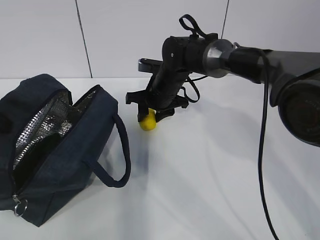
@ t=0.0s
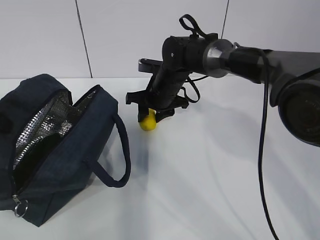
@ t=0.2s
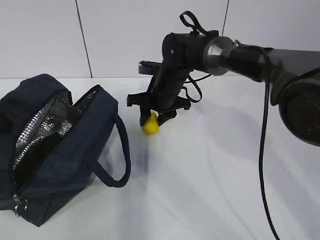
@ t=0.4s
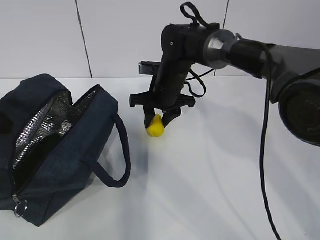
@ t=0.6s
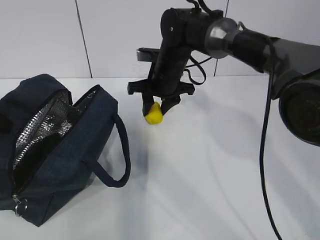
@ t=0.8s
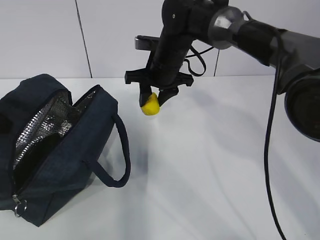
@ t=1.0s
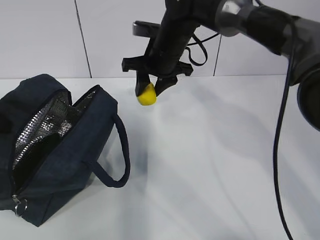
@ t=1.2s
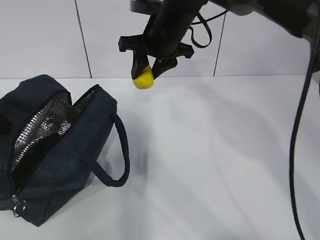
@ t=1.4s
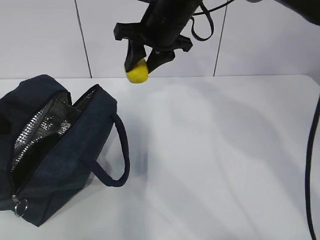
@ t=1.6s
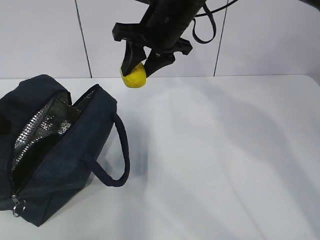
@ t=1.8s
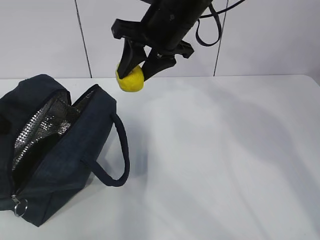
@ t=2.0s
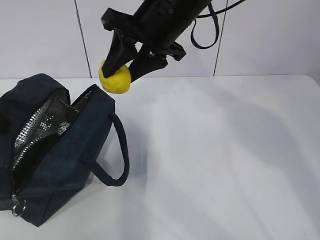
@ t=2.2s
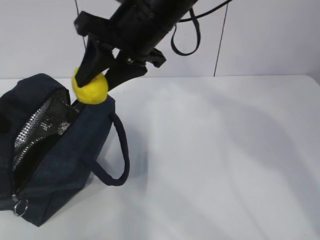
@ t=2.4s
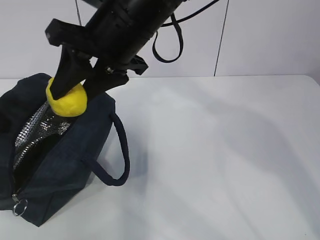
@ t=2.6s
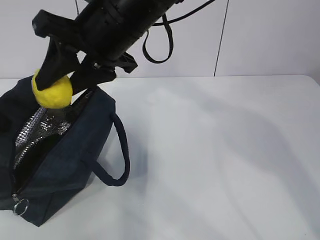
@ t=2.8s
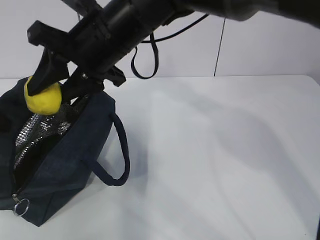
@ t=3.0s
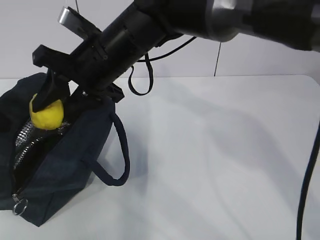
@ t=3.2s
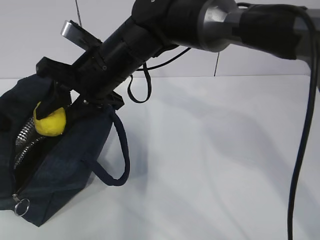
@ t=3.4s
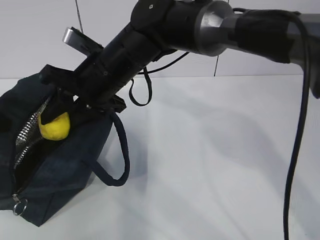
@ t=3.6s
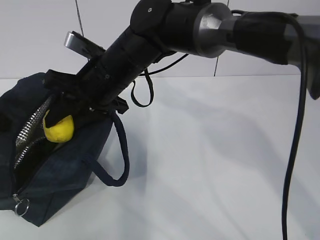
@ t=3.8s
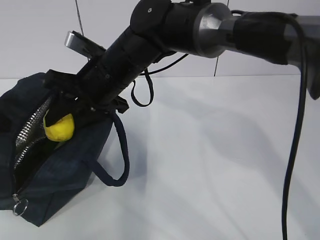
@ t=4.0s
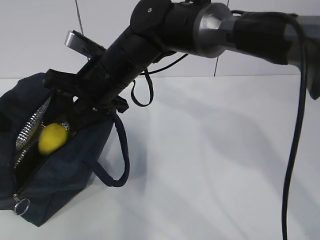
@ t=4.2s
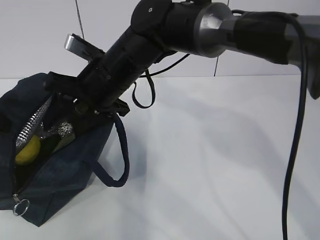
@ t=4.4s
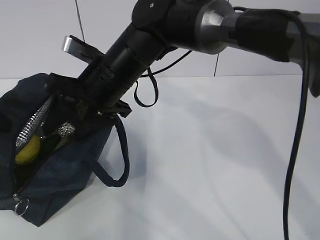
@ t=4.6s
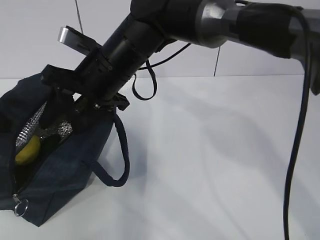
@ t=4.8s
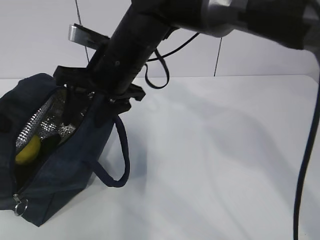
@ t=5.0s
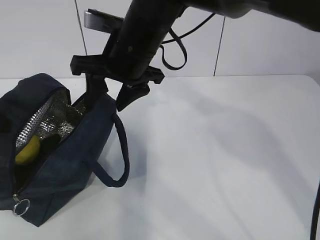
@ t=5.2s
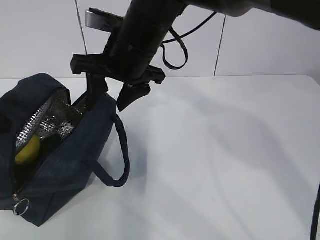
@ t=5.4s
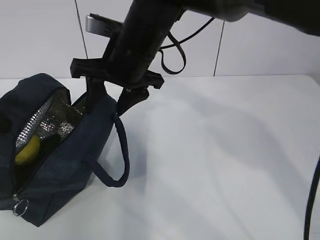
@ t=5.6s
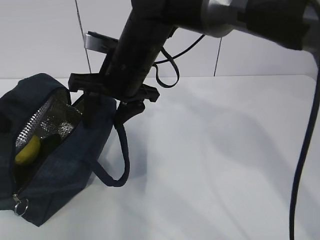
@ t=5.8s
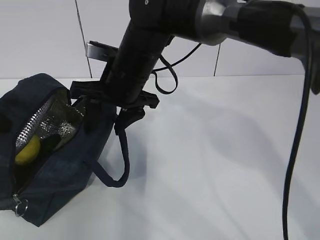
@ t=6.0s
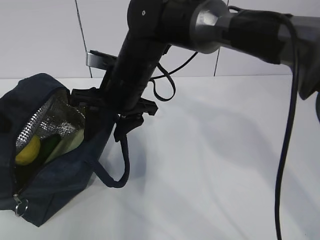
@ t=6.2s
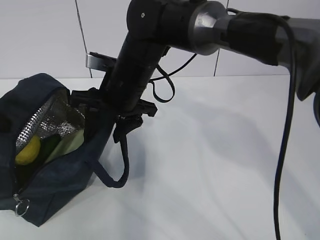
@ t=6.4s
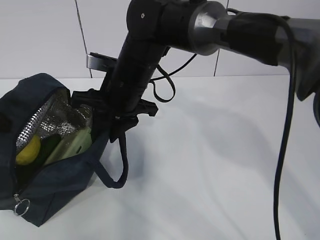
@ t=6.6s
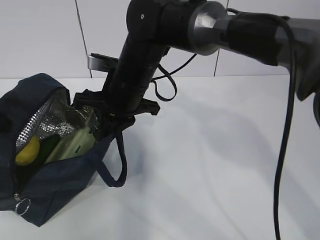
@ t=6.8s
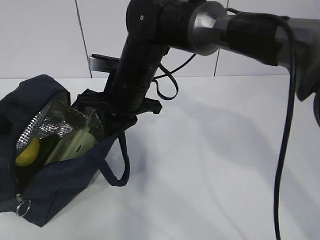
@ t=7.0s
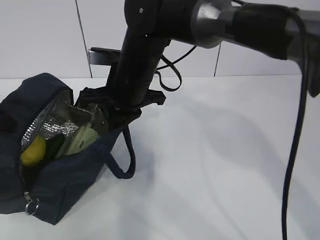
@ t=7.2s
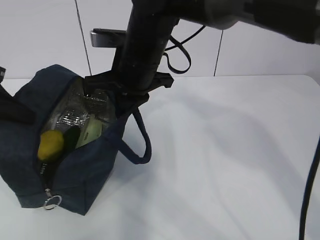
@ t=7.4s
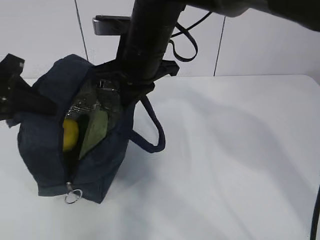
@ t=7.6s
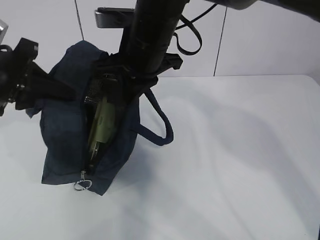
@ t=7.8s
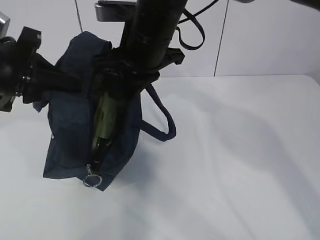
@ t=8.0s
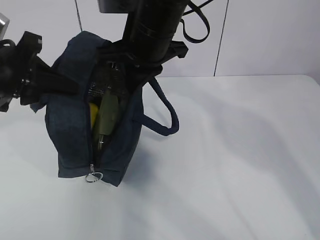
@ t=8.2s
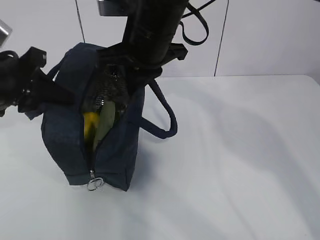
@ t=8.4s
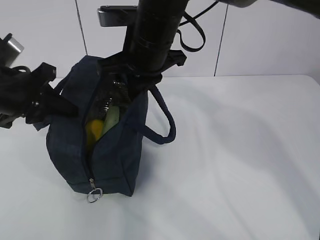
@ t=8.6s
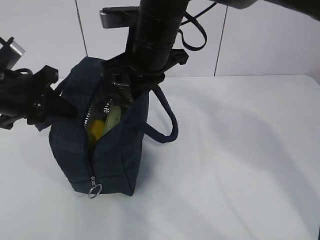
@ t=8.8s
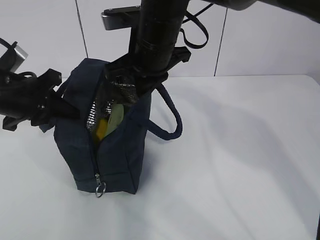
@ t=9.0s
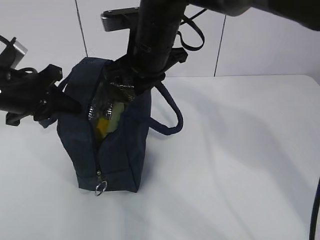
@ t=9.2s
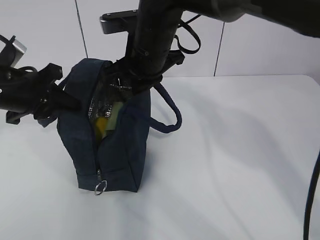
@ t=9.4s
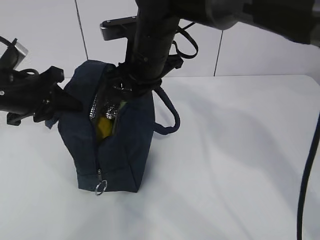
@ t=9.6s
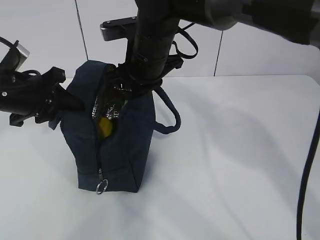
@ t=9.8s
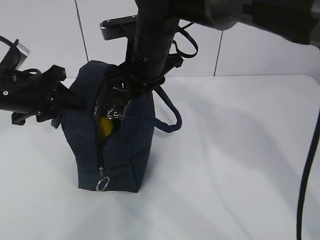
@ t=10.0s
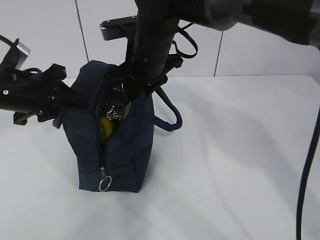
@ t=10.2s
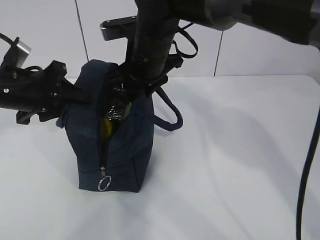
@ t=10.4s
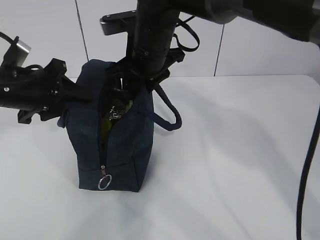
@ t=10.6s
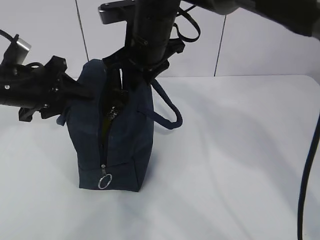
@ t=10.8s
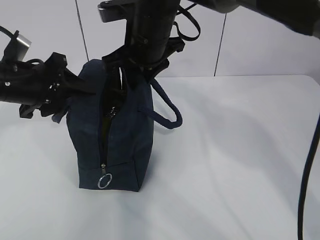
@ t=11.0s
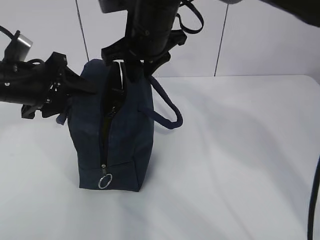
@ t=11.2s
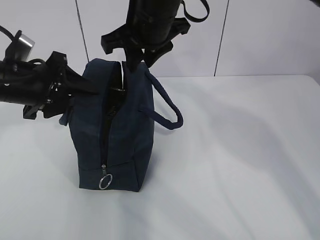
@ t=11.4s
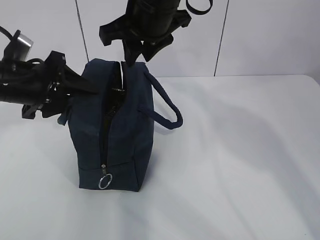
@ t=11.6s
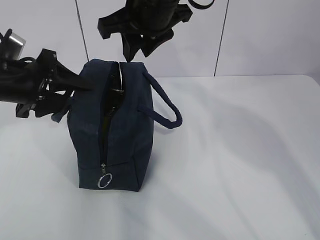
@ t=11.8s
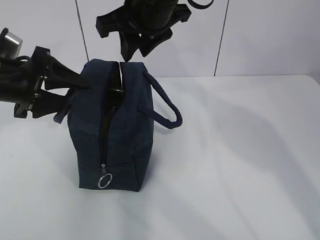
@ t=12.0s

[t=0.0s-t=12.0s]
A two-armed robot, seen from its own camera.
Step, t=0.0s to t=3.0s: Move the lunch bag to the right.
t=0.0s to t=1.6s: The right gripper shifts some 15 cm upward.
t=1.6s to t=3.0s: The right gripper moves backward and to the left, approximately 10 cm.
t=3.0s to t=4.4s: The right gripper moves downward, approximately 5 cm.
t=6.0s to t=7.6s: The right gripper closes its fingers; the left gripper goes roughly 5 cm to the right.
t=7.6s to t=9.0s: The left gripper ends up about 5 cm from where it was.
t=9.0s to t=10.4s: The right gripper opens up. The left gripper opens up.
t=10.4s to t=12.0s: The left gripper opens its fingers. The right gripper is displaced upward by approximately 10 cm.

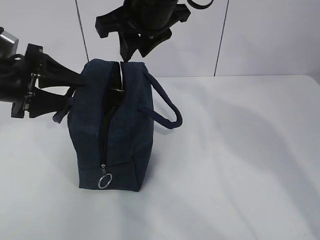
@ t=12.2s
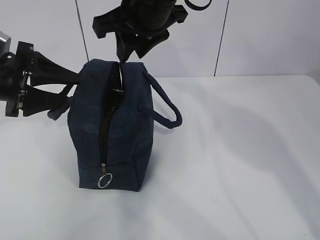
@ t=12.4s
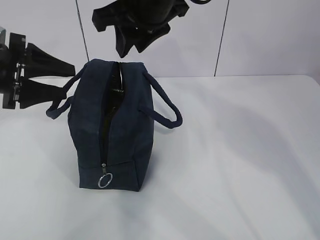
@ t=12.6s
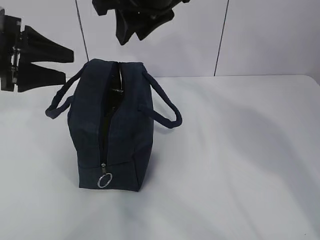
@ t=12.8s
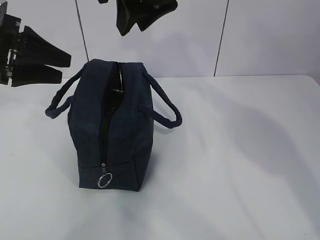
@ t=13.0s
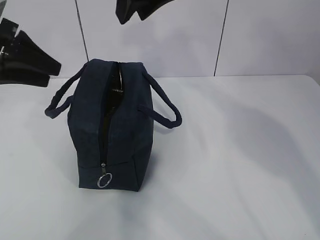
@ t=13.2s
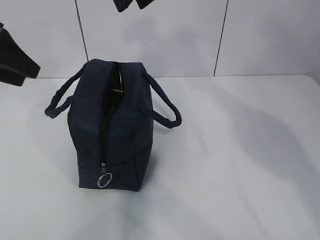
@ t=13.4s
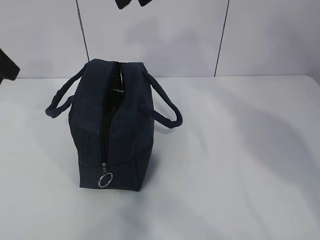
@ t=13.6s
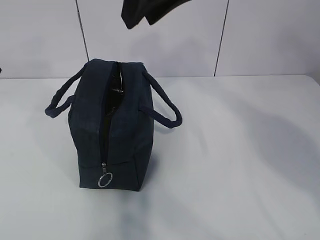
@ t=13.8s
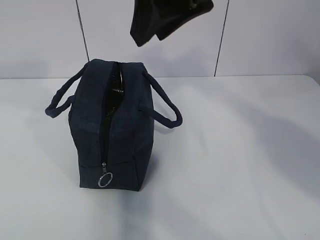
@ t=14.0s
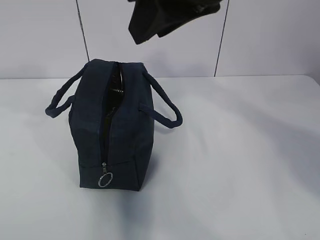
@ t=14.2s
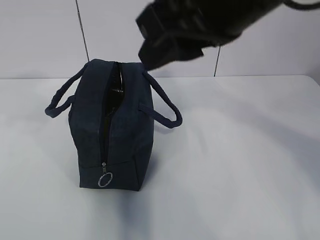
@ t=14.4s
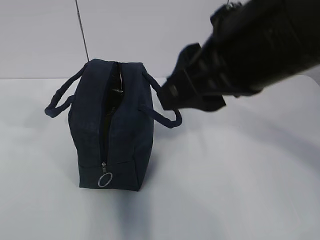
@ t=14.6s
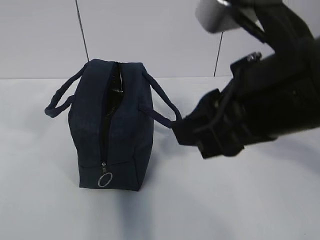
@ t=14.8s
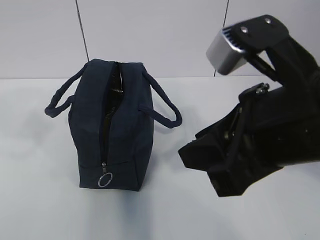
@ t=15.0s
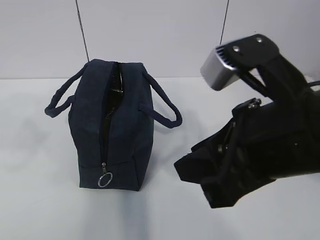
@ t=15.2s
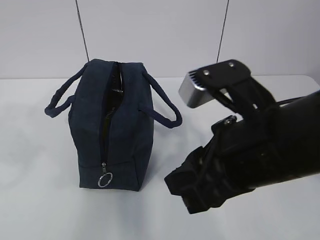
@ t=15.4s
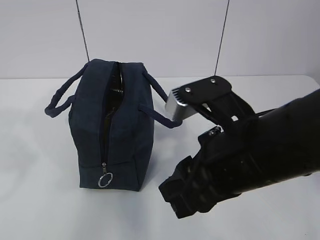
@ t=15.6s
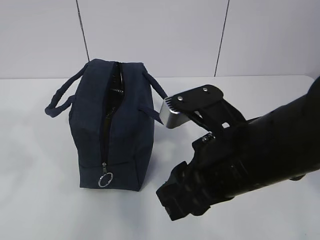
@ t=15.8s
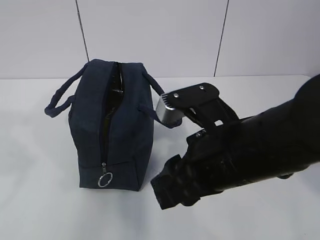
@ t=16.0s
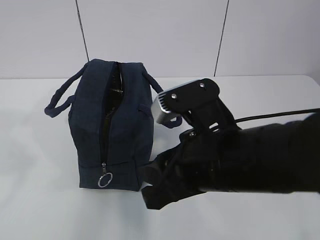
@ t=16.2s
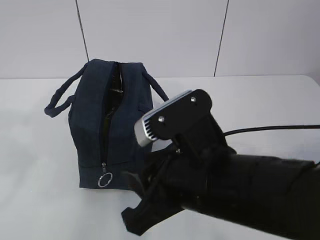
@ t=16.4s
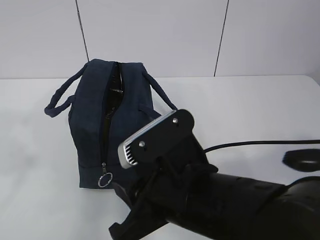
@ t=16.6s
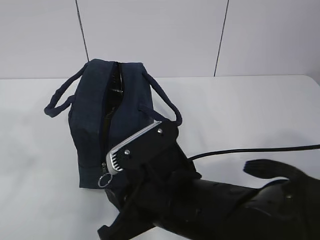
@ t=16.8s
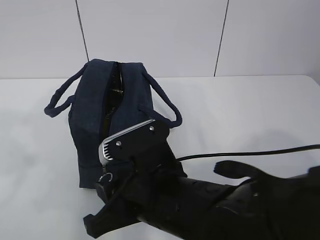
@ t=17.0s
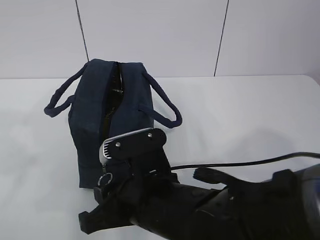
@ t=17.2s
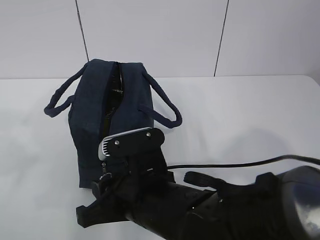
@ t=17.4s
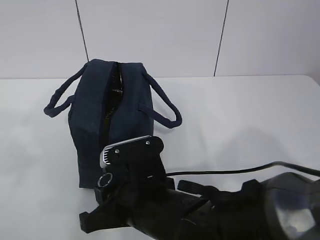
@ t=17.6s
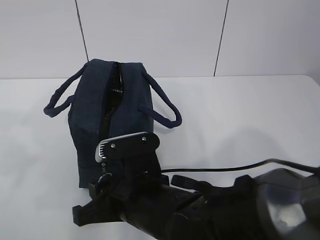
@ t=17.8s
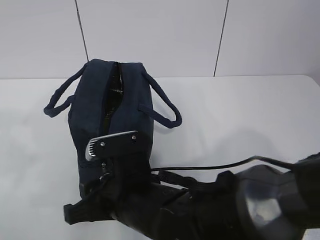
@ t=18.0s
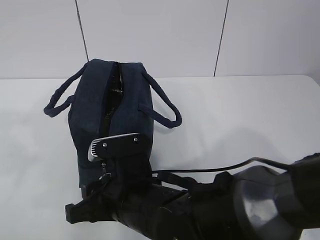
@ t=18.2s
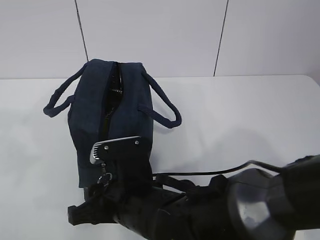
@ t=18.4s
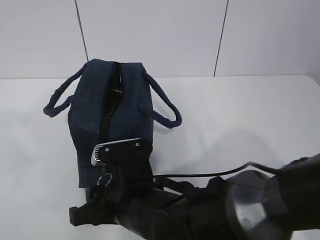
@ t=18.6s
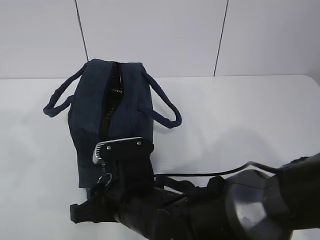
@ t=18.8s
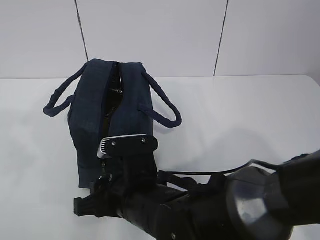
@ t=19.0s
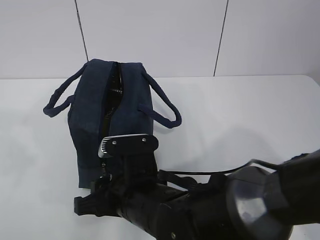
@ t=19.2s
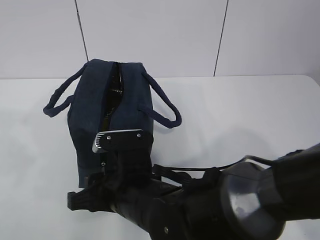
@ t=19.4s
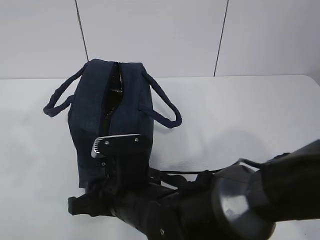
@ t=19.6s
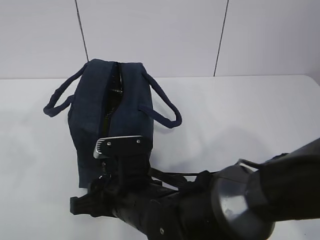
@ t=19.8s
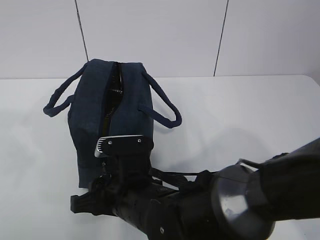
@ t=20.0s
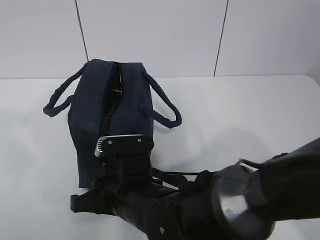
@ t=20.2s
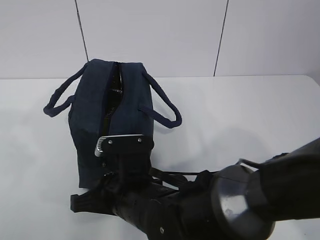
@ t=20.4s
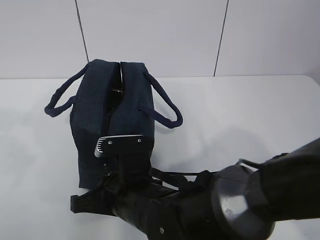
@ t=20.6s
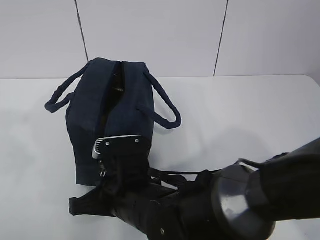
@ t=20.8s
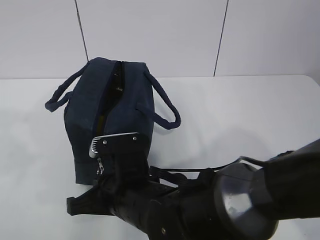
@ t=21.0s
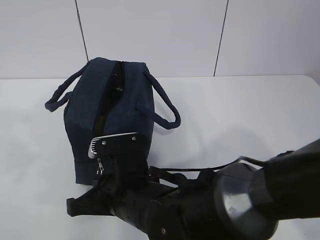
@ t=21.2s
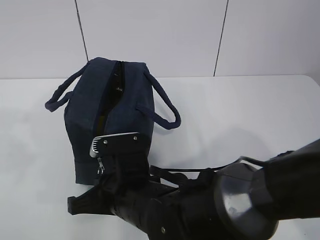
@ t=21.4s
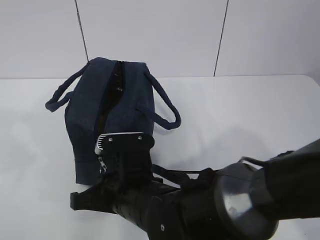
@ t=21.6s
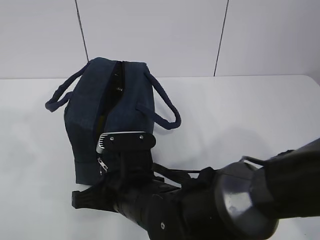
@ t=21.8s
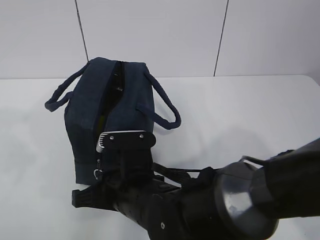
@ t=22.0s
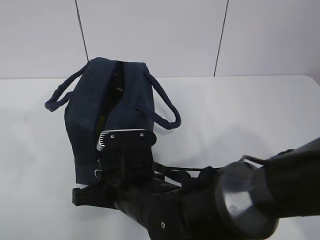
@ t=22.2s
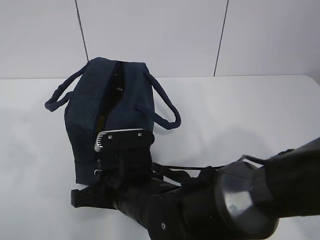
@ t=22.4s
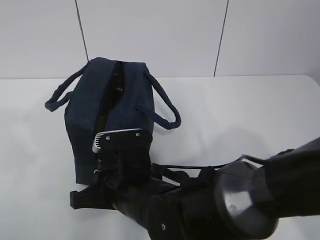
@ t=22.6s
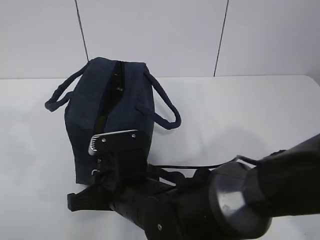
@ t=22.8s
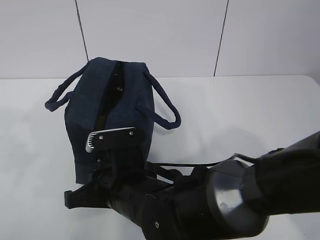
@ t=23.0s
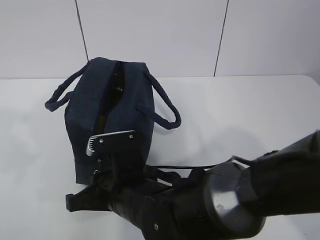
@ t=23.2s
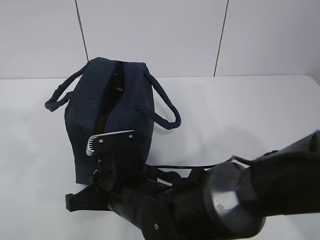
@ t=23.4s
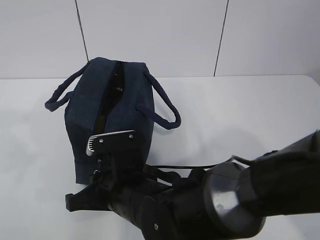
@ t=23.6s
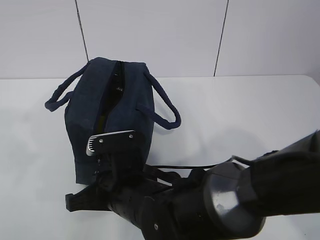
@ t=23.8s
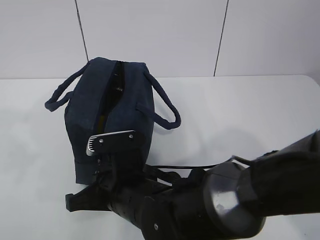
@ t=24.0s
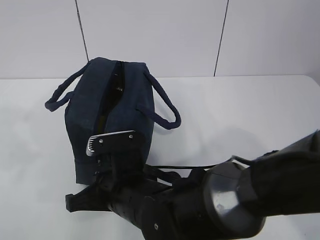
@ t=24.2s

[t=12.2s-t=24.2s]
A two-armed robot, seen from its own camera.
Step, t=12.2s to t=20.6s: Grab the lunch bag with your left hand.
t=12.2s to t=13.8s: The left gripper travels upward by some 10 cm, and closes its fingers; the right gripper shifts about 10 cm upward and backward.
t=13.8s to t=15.2s: The right gripper shifts approximately 20 cm backward, downward and to the right. The left gripper moves backward, some 10 cm.
t=15.2s to t=16.6s: The right gripper heads downward and to the left, covering roughly 10 cm, while the left gripper is displaced backward by approximately 5 cm.
t=16.6s to t=18.2s: The right gripper heads downward and to the left, covering about 10 cm.
t=18.2s to t=19.8s: The grippers make only small movements.
t=19.8s to t=21.2s: The right gripper closes up.
t=21.2s to t=22.6s: The grippers move only a little.
t=22.6s to t=24.2s: Both grippers stay about where they are.
